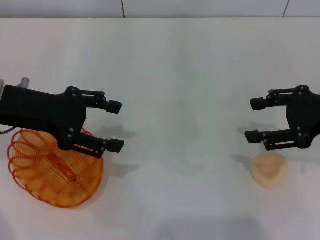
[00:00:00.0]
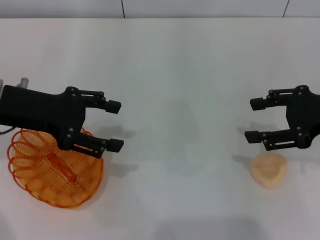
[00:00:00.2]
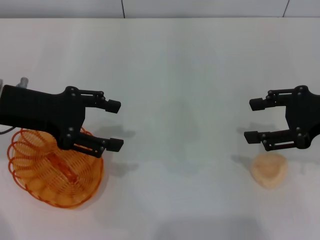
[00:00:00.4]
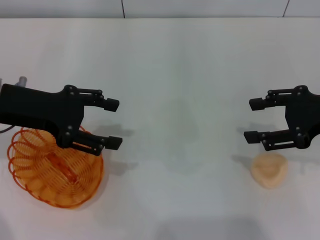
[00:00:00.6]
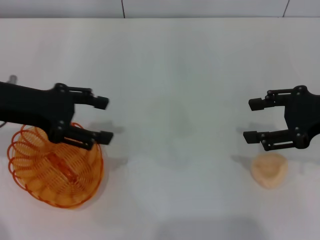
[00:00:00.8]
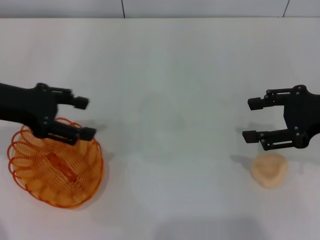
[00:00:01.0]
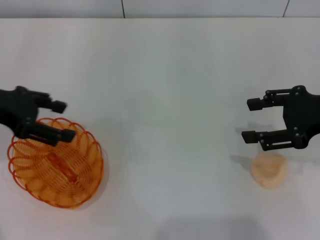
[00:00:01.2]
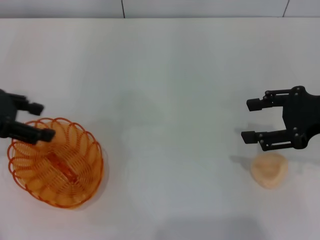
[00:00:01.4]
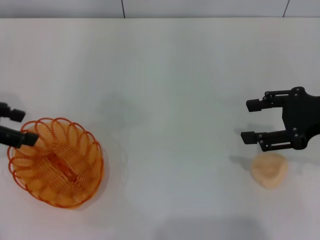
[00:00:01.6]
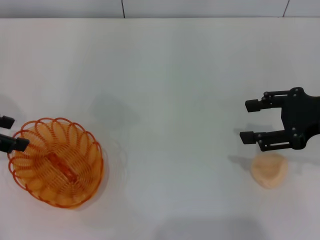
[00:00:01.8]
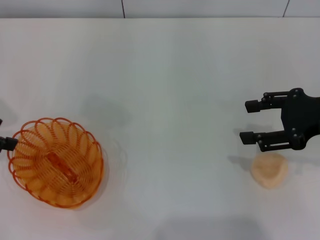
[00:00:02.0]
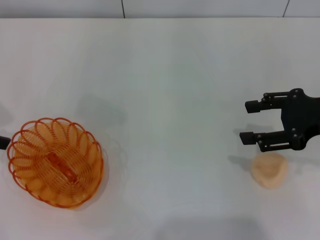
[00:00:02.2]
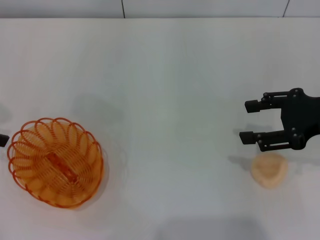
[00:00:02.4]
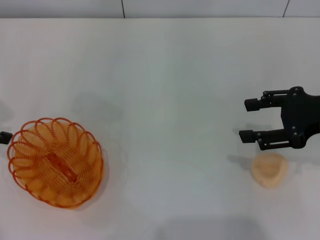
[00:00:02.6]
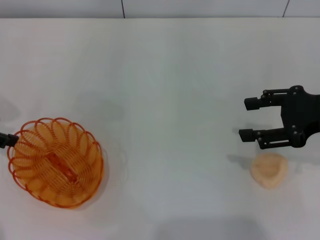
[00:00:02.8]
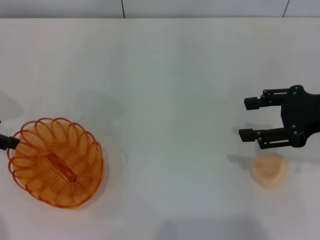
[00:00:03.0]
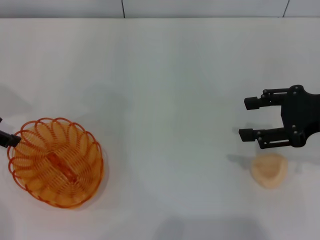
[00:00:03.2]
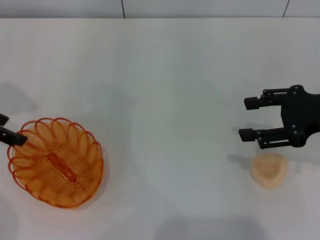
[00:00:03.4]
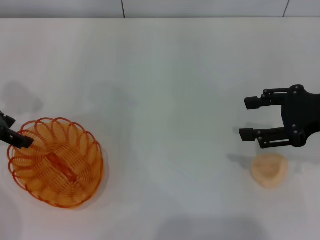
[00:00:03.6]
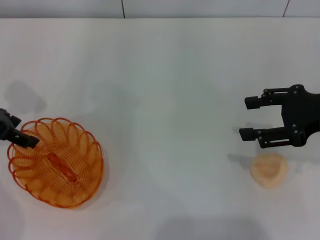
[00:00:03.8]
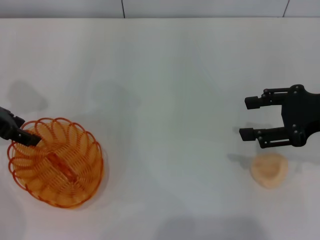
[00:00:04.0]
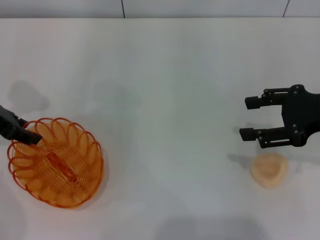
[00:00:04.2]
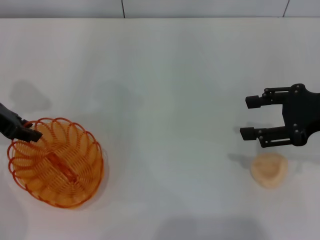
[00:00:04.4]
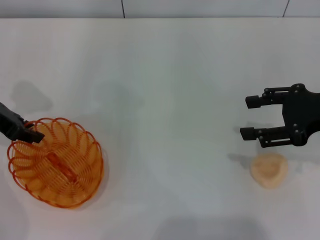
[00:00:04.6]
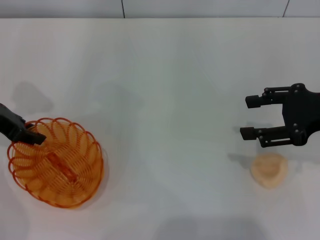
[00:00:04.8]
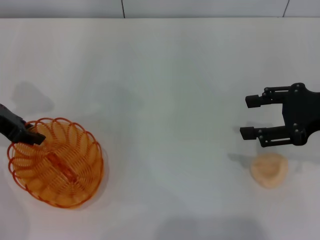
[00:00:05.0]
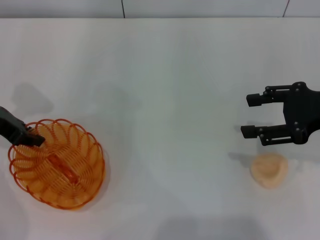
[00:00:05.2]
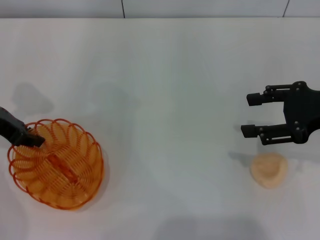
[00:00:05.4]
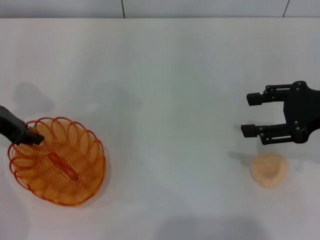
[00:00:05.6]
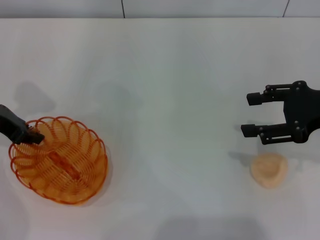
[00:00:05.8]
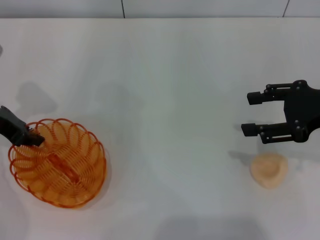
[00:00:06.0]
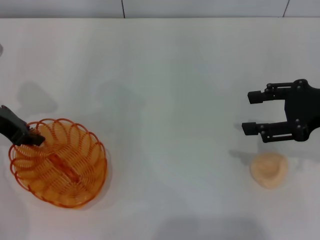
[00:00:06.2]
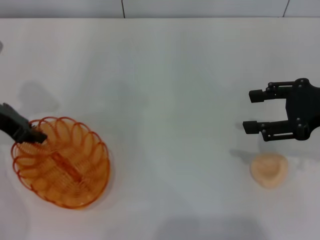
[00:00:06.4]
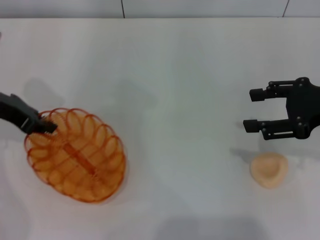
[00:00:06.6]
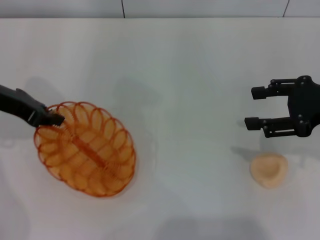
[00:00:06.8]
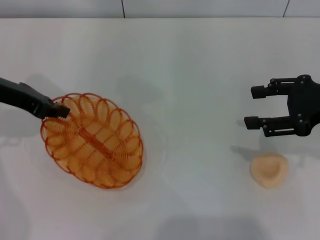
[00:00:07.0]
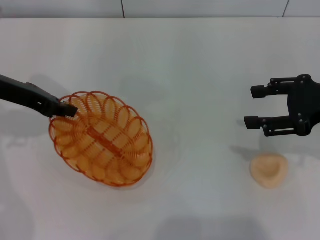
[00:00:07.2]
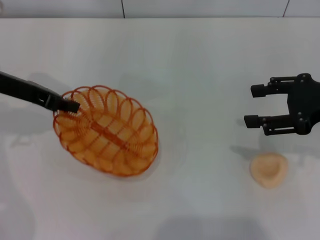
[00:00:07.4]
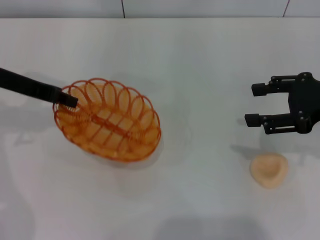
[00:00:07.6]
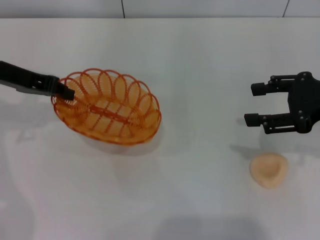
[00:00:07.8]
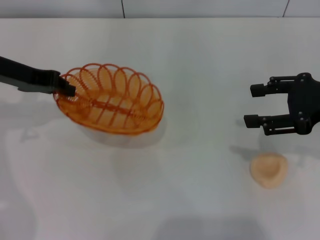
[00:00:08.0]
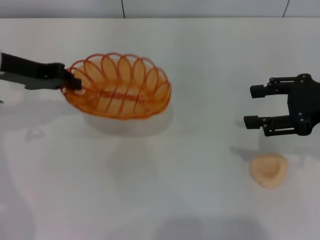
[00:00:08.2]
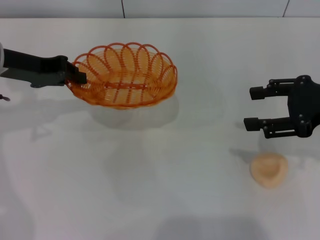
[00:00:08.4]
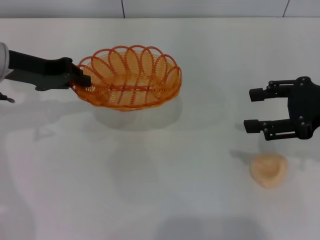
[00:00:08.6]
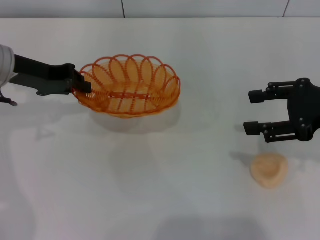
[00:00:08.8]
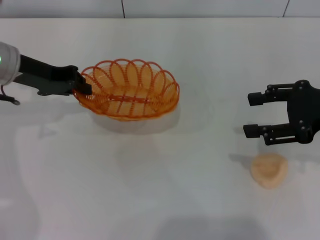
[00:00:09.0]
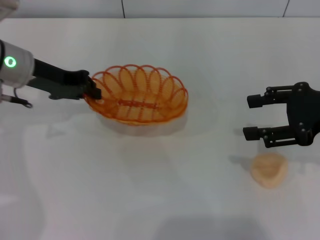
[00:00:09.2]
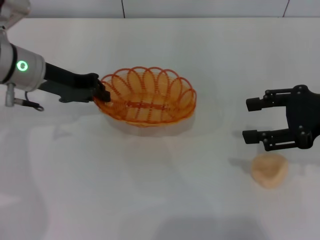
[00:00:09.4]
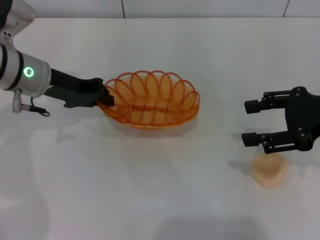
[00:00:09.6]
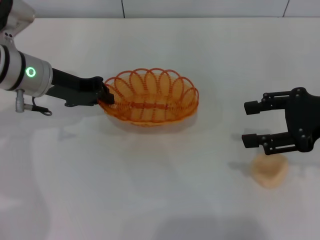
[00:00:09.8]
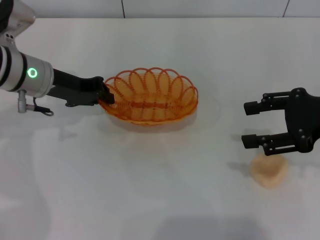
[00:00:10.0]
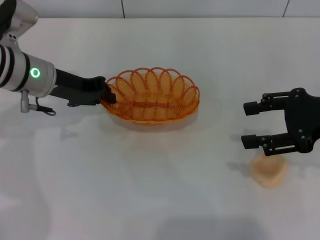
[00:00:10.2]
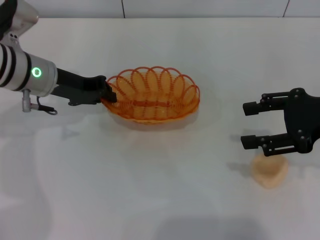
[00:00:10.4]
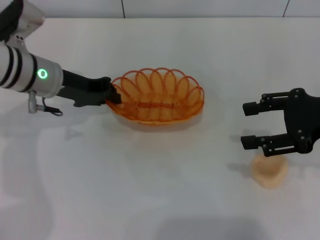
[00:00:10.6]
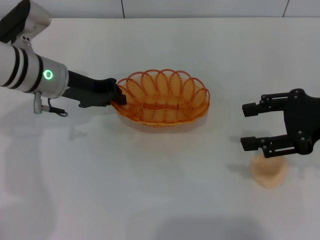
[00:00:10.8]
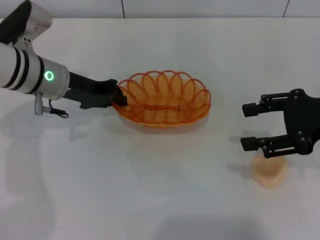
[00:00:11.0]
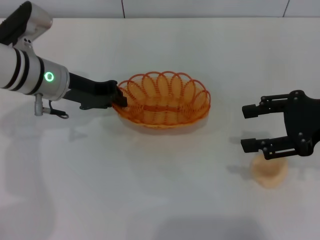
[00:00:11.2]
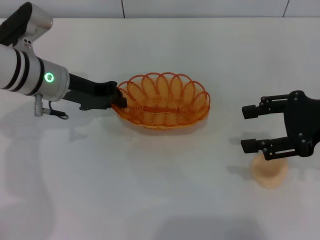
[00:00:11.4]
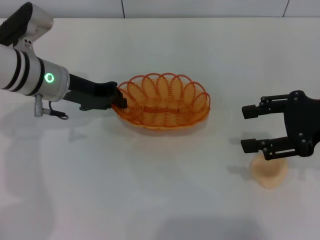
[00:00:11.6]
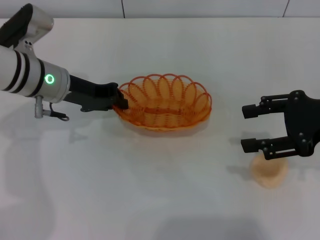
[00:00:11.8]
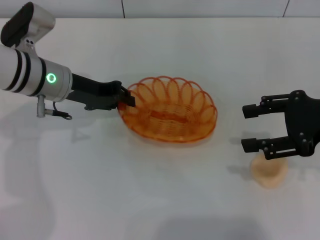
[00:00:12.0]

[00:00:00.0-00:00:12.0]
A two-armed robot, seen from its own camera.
Step, 00:00:00.0 to 00:00:07.2: Pick up the basket with the left gripper.
00:00:00.0 to 00:00:01.6: The left gripper heads to the left, covering roughly 10 cm.
00:00:01.6 to 00:00:03.0: The grippers move only a little.
00:00:03.0 to 00:00:04.4: The left gripper ends up some 5 cm from where it was, and closes its fingers.
00:00:04.4 to 00:00:06.0: The left gripper closes.
00:00:09.0 to 00:00:10.4: The left gripper changes place by some 5 cm.
00:00:10.4 to 00:00:12.0: The grippers move only a little.

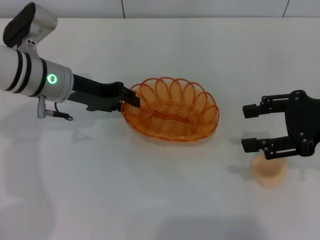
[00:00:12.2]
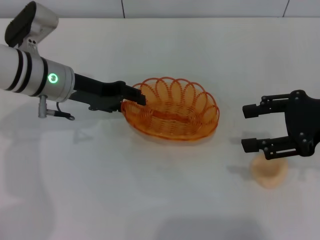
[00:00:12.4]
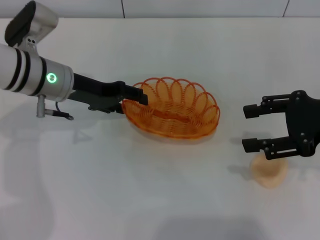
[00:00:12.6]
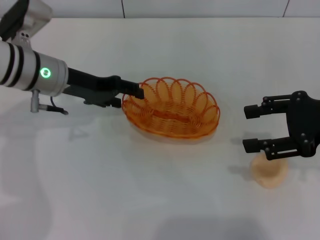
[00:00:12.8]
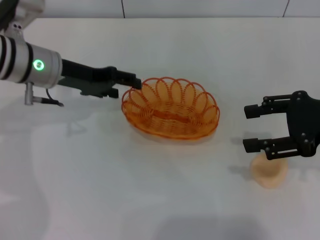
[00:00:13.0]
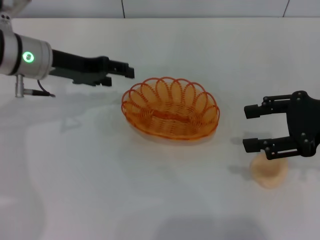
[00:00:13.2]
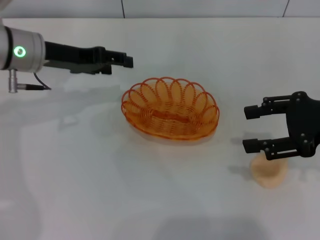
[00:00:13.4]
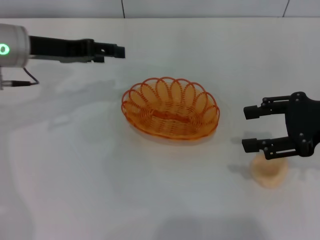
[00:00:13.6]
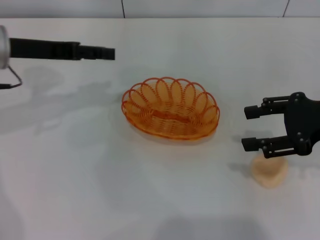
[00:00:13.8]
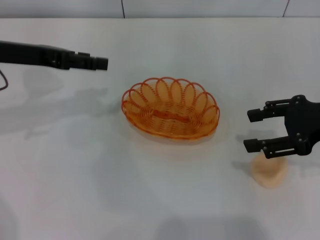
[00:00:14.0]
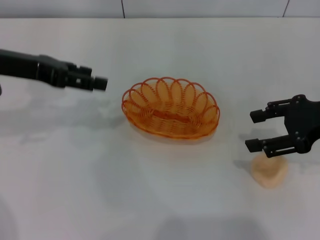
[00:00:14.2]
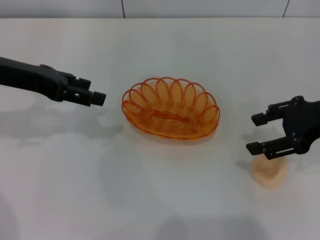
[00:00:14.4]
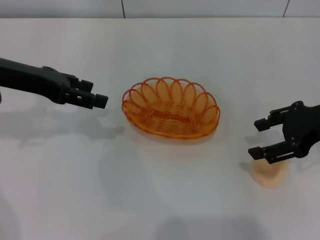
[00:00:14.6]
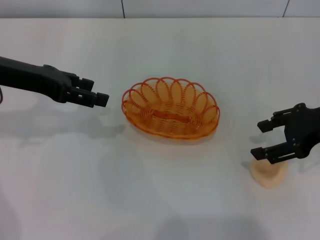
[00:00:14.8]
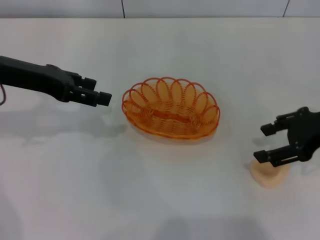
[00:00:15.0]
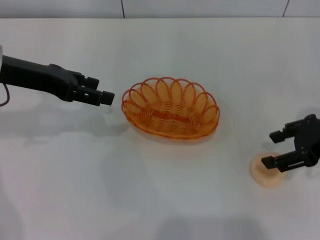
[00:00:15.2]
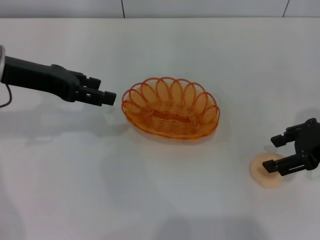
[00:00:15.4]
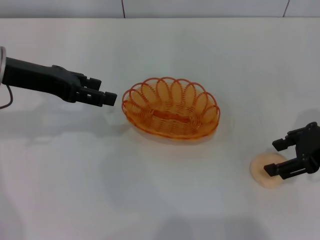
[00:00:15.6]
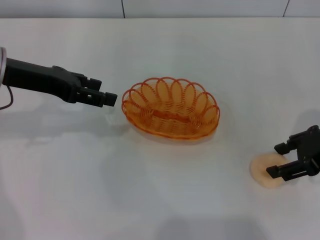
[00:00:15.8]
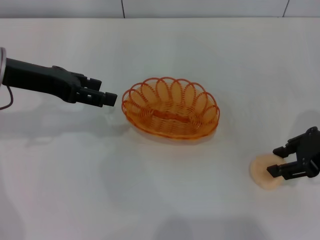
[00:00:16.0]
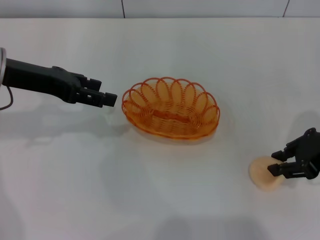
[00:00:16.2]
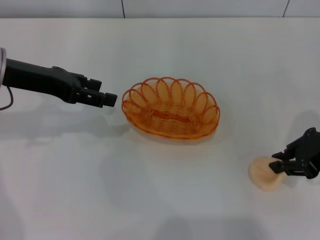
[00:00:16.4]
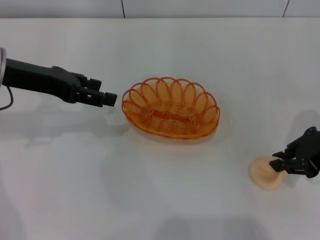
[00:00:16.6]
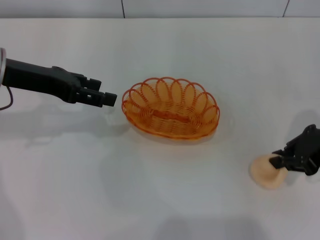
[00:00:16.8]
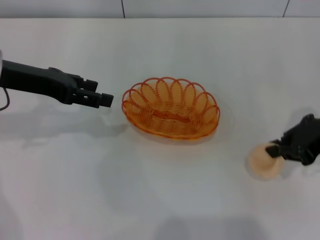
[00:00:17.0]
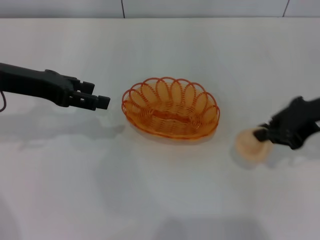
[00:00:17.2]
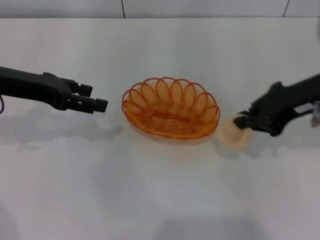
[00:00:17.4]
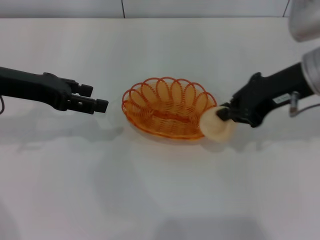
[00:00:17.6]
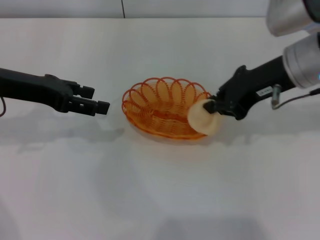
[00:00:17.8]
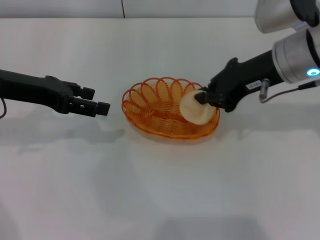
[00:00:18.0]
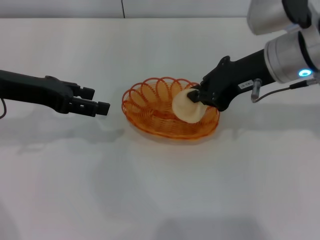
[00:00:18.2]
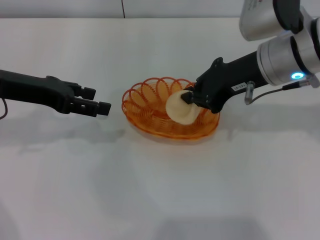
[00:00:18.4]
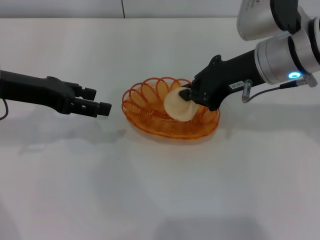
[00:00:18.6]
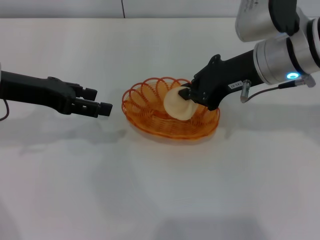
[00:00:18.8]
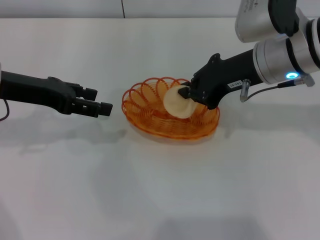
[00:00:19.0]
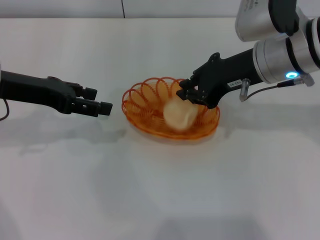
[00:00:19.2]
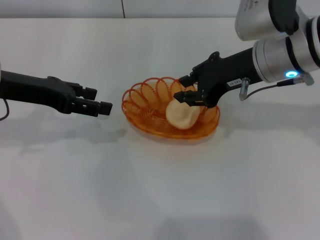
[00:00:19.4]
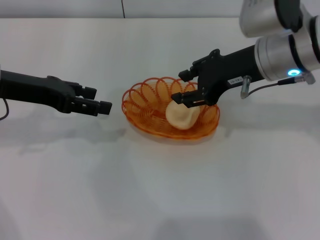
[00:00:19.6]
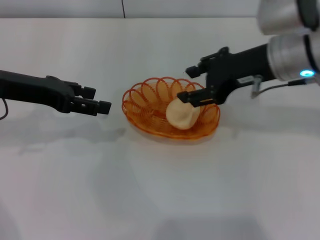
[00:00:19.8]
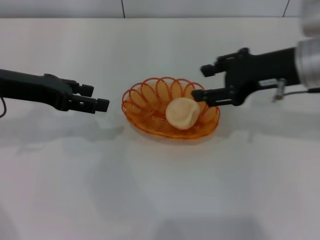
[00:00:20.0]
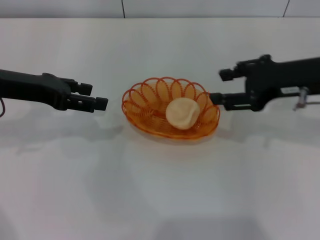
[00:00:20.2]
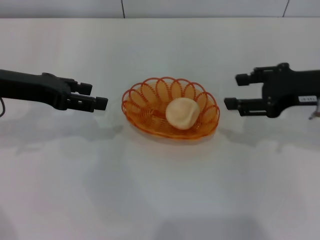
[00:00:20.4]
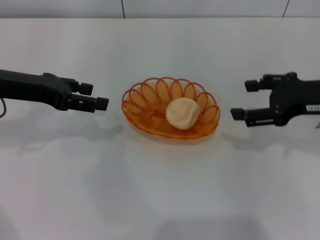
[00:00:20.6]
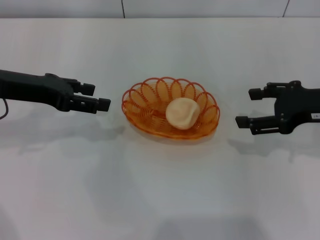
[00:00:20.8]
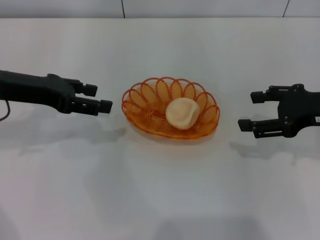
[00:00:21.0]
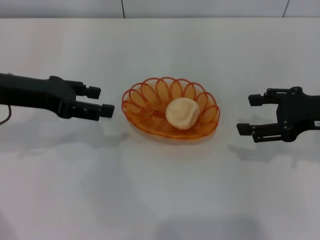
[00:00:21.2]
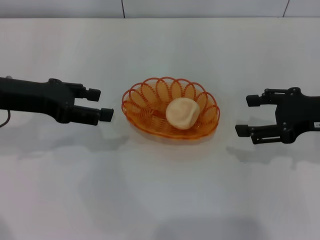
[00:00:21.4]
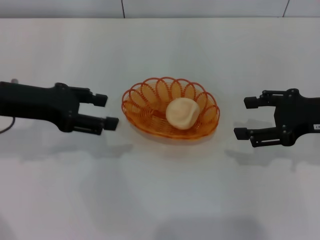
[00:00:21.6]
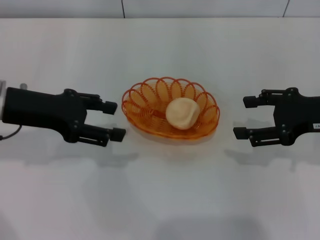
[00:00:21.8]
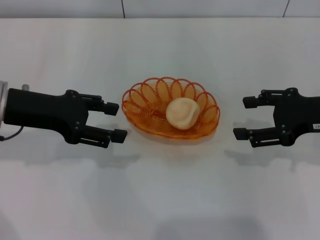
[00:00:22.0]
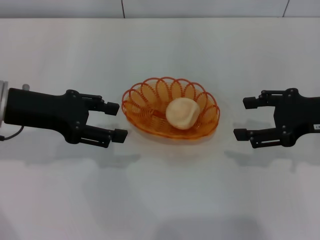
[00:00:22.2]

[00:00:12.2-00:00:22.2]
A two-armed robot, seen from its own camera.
Step, 00:00:12.2 to 00:00:14.4: Place the basket in the center of view with the left gripper.
Step, 00:00:14.6 to 00:00:17.6: Pick up the egg yolk pastry with the right gripper.
Step, 00:00:18.0 to 00:00:20.4: Place the egg yolk pastry into the basket with the right gripper.
00:00:12.2 to 00:00:13.6: The left gripper is displaced upward by some 5 cm, and opens its fingers.
00:00:15.0 to 00:00:16.4: The right gripper closes its fingers.
00:00:16.4 to 00:00:18.0: The right gripper moves to the left, upward and forward, about 15 cm.
00:00:18.0 to 00:00:19.4: The grippers make only small movements.
00:00:19.4 to 00:00:20.8: The right gripper moves to the right and backward, roughly 15 cm, and opens its fingers.
00:00:20.8 to 00:00:22.2: The grippers stay close to where they were, moving slightly.
